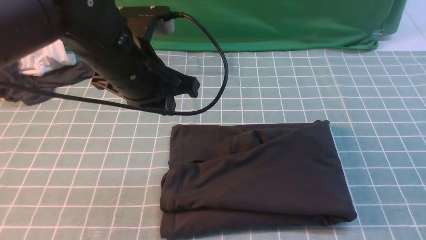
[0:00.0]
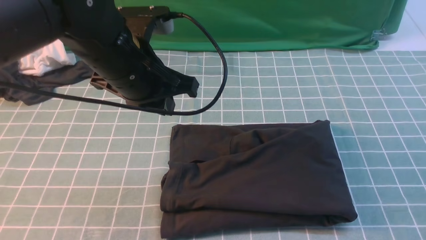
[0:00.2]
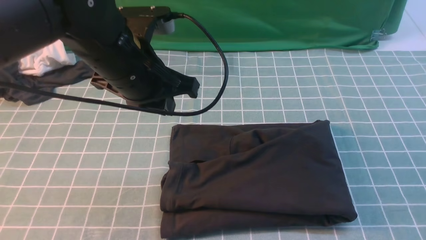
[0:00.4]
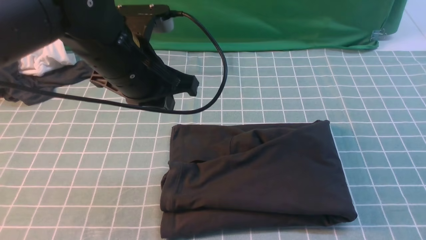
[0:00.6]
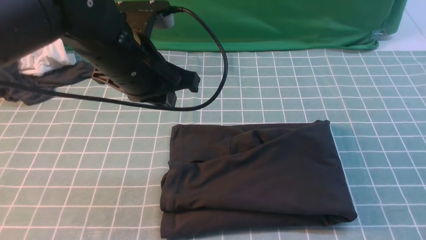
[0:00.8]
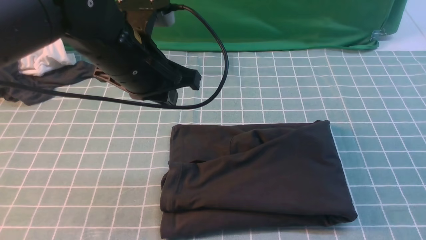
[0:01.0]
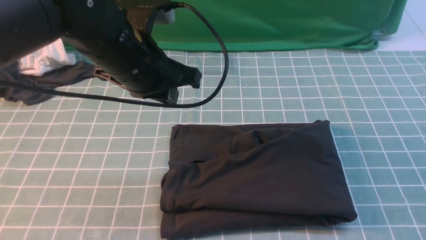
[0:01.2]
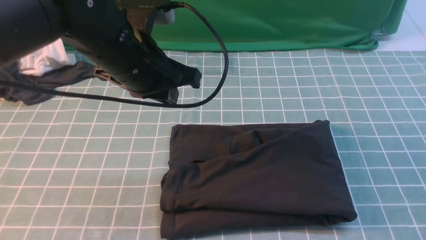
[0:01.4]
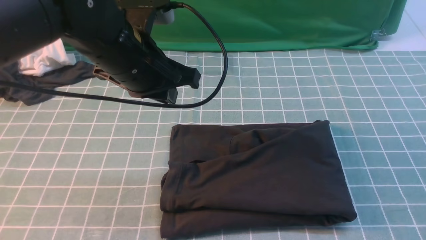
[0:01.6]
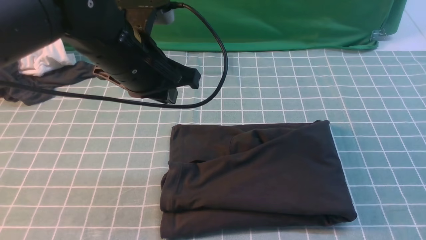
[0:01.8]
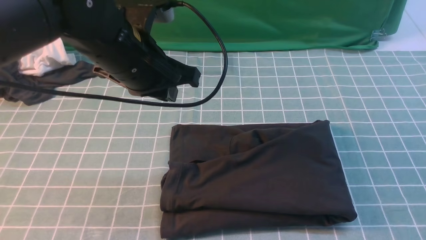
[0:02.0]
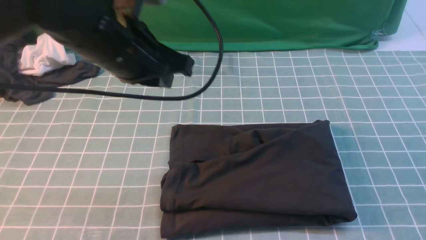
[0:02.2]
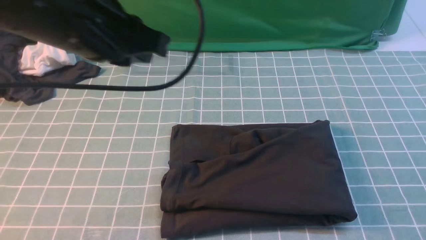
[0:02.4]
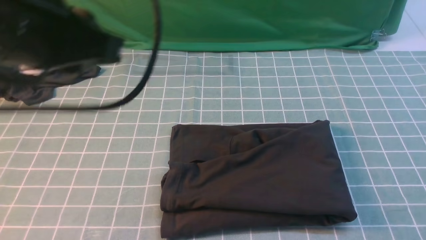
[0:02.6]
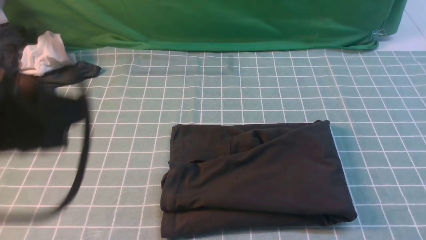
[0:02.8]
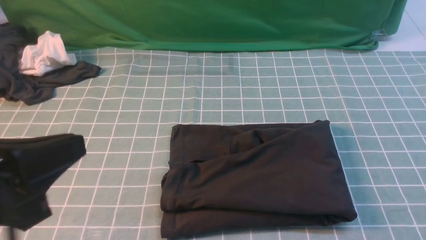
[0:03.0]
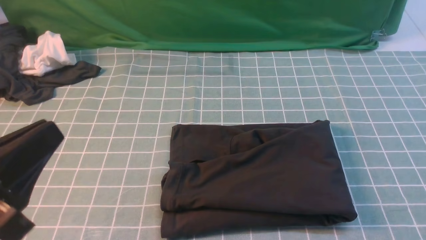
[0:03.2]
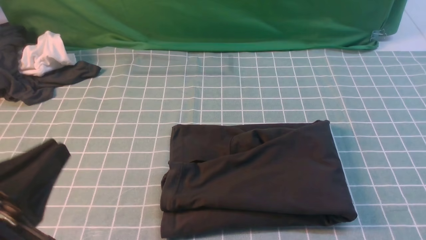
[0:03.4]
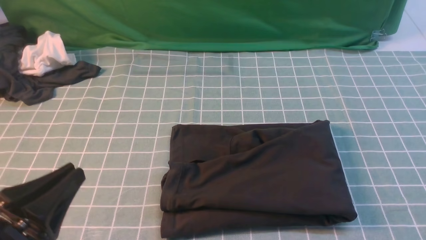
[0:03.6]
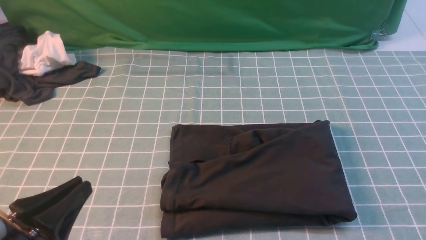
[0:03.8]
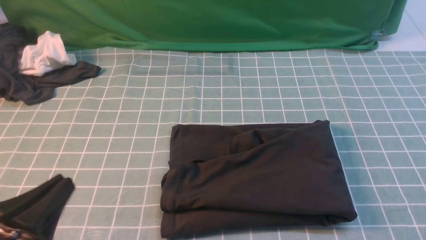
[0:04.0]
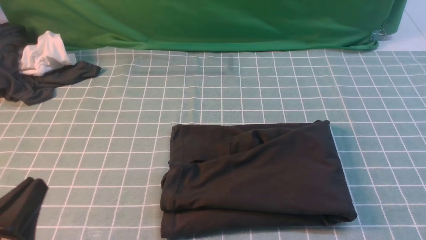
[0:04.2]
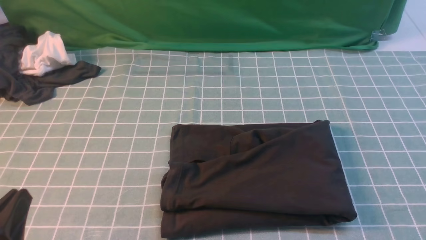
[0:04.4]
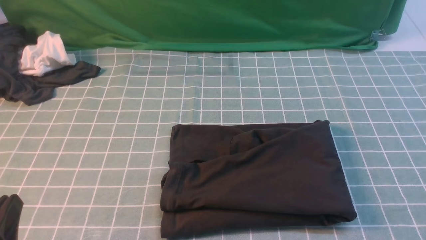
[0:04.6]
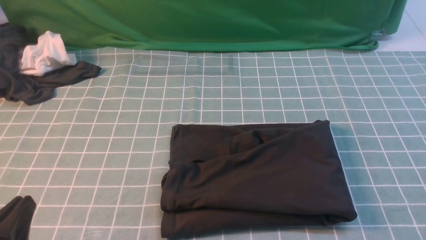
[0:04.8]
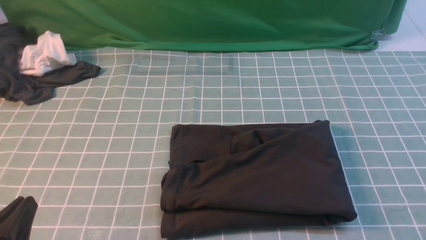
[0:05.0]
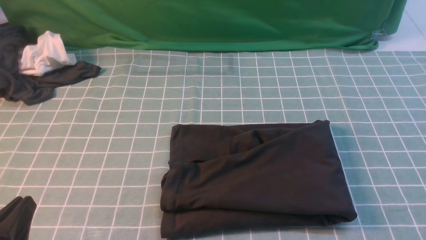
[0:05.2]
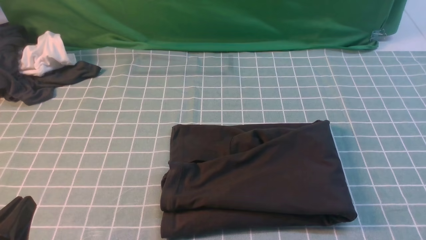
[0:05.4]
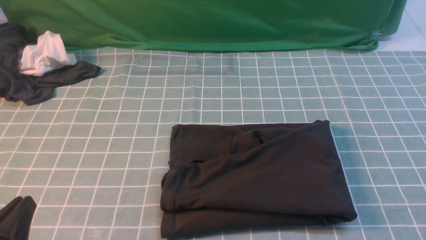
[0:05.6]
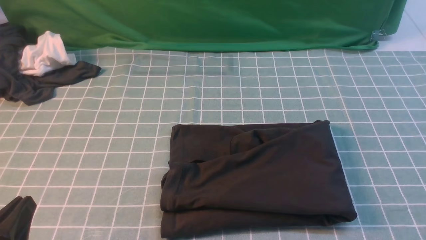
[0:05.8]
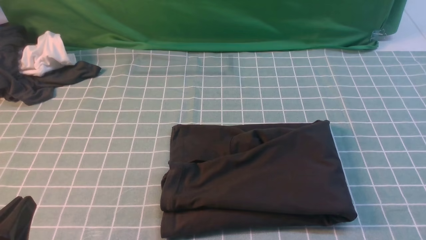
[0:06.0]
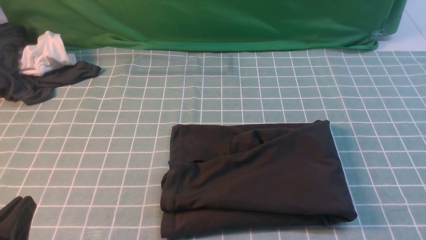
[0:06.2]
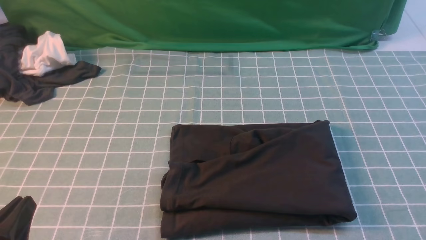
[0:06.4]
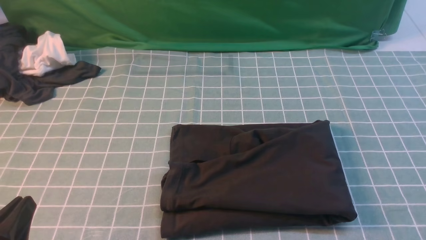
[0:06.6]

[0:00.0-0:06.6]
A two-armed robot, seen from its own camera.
0:00.0 to 0:01.6: The right gripper goes some 15 cm downward.
0:01.6 to 0:03.2: The left gripper goes about 25 cm backward and to the left.
0:03.2 to 0:05.0: The left gripper heads downward, covering roughly 10 cm.
0:05.0 to 0:06.6: The two grippers keep their place.
